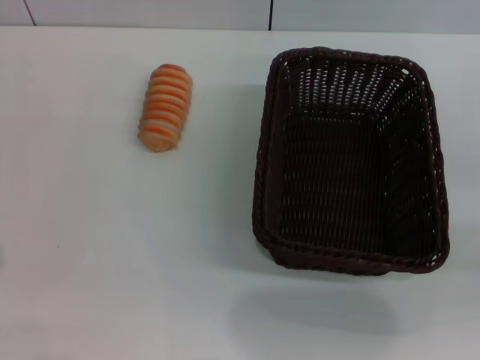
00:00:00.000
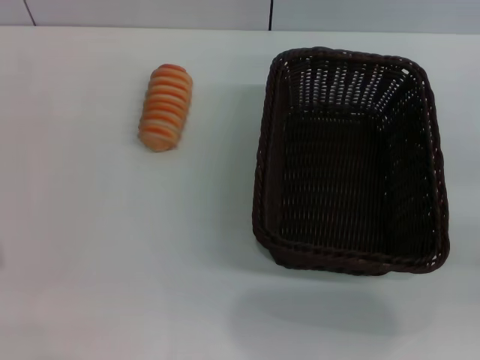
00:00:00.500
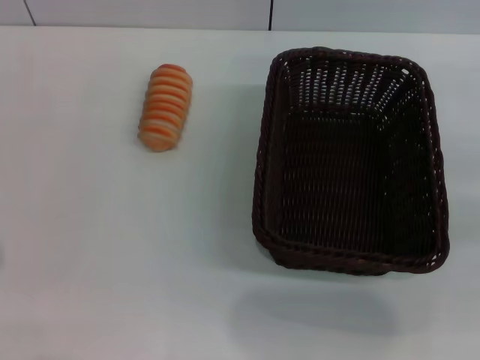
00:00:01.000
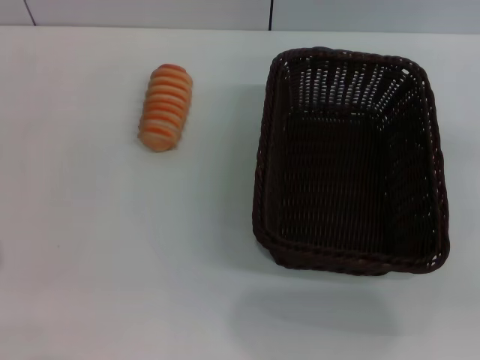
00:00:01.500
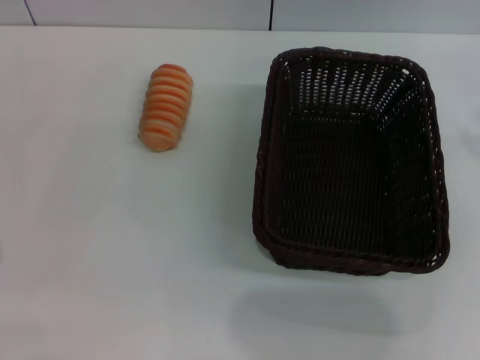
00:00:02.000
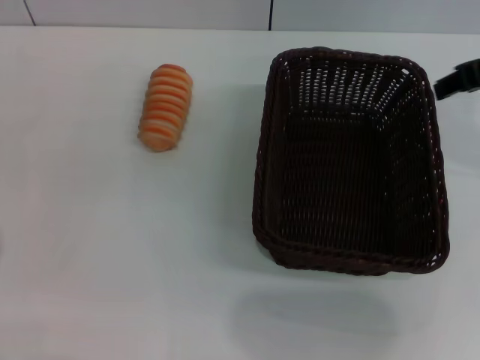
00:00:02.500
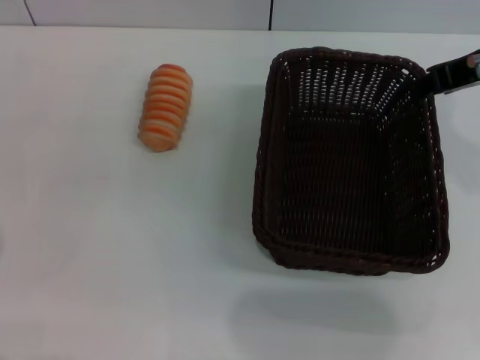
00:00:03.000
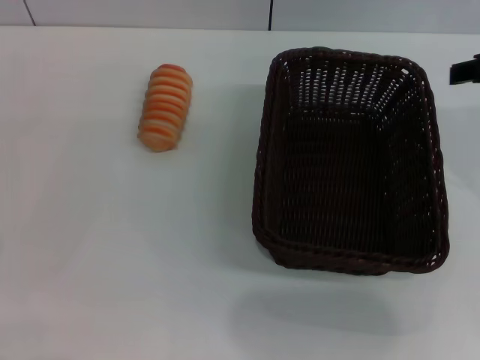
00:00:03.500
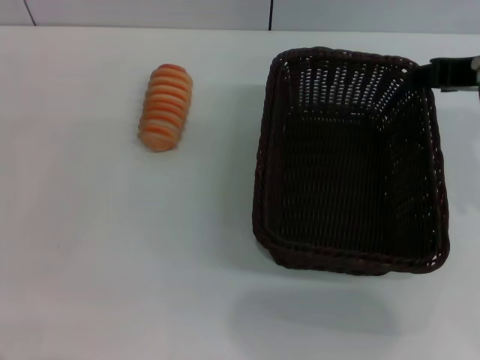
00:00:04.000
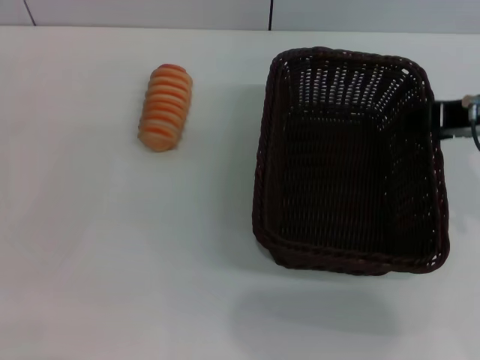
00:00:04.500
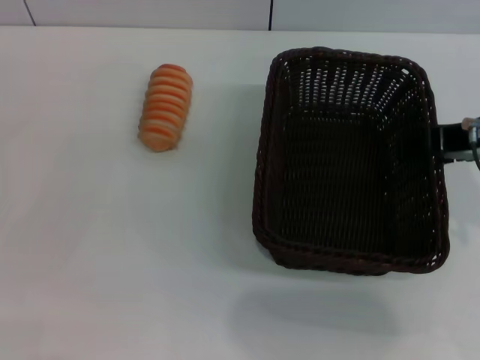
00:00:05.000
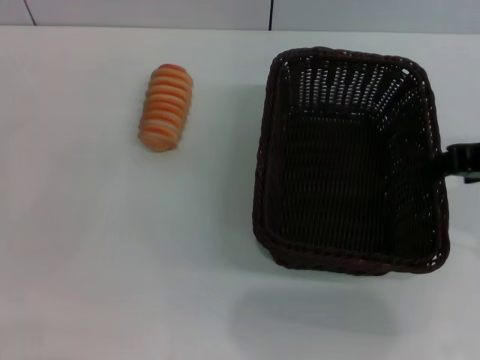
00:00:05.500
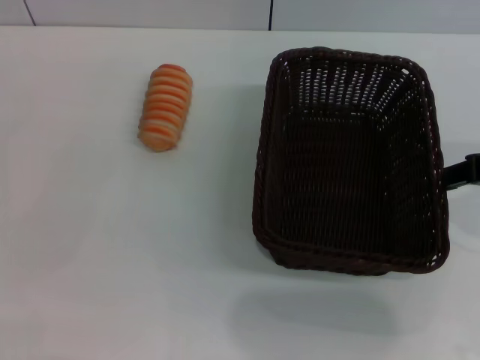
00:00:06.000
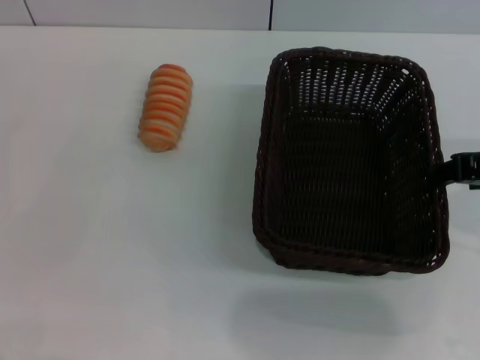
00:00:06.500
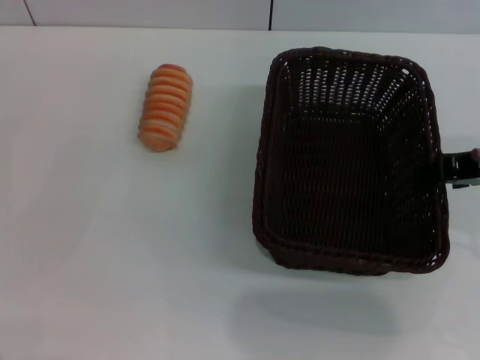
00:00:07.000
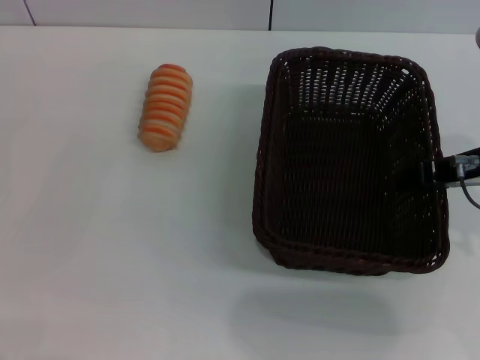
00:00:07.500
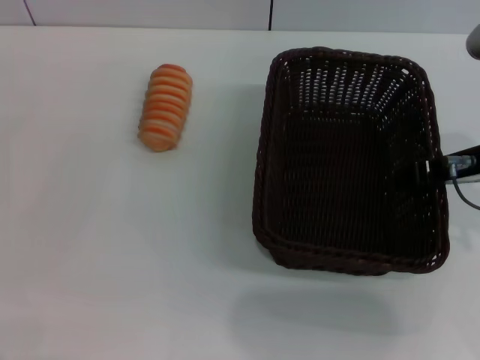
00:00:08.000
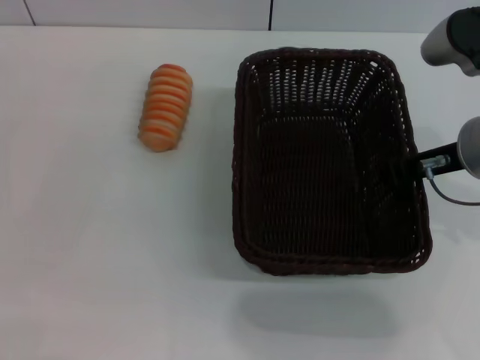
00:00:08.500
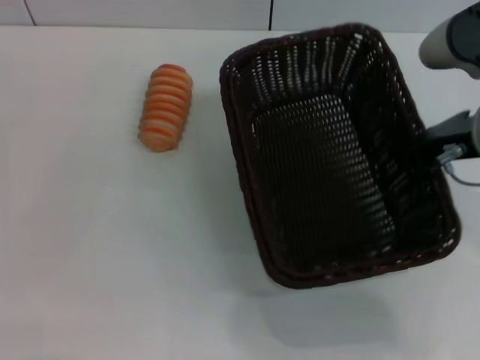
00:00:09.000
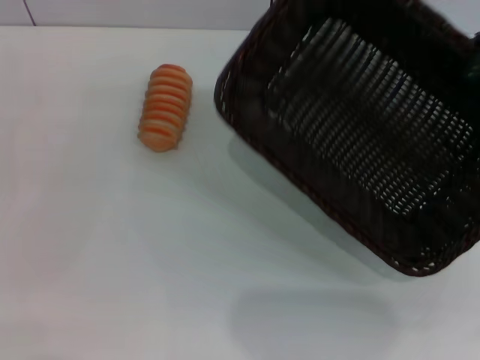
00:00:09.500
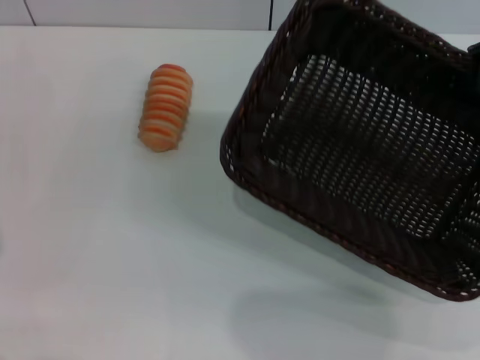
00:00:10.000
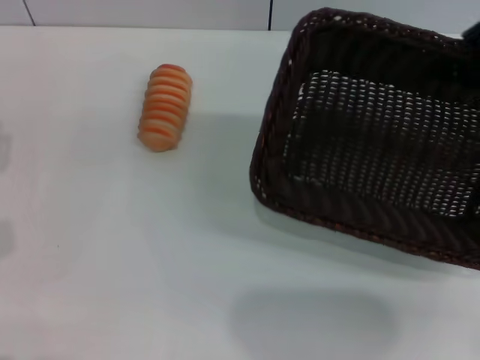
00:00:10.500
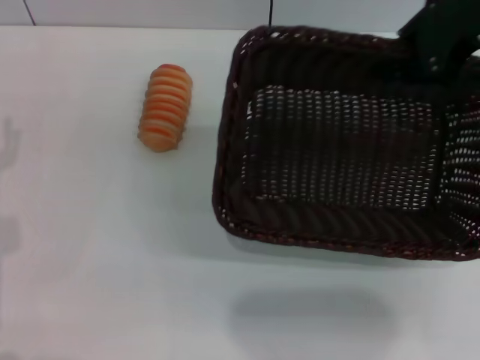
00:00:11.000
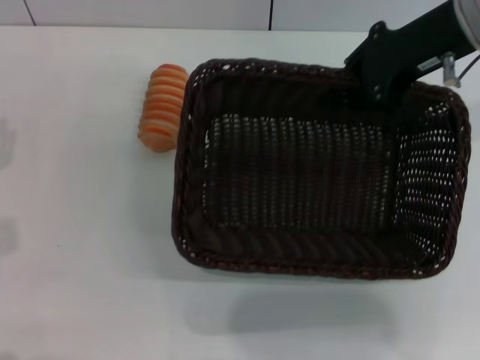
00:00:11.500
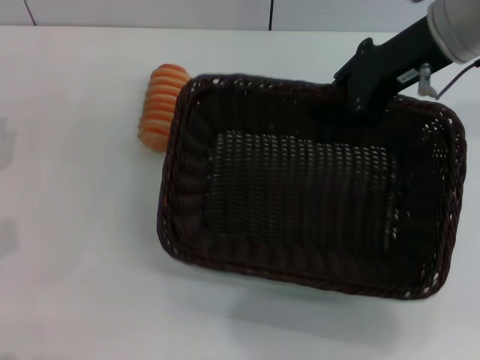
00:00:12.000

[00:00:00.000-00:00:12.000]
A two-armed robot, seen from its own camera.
Step, 00:00:00.000 to 00:00:09.000: Pick up the dark basket with the right gripper.
00:00:02.000 to 00:00:04.000: The right gripper is displaced to the left by approximately 10 cm.
00:00:04.000 to 00:00:06.000: The right gripper moves about 5 cm.
00:00:06.000 to 00:00:08.000: The right gripper moves downward, some 5 cm.
00:00:08.000 to 00:00:10.000: The right gripper heads upward and to the right, covering about 10 cm, and closes its fingers.
00:00:10.000 to 00:00:12.000: The right gripper travels to the left and forward by about 10 cm.

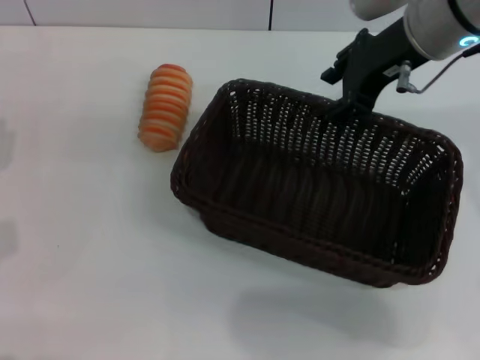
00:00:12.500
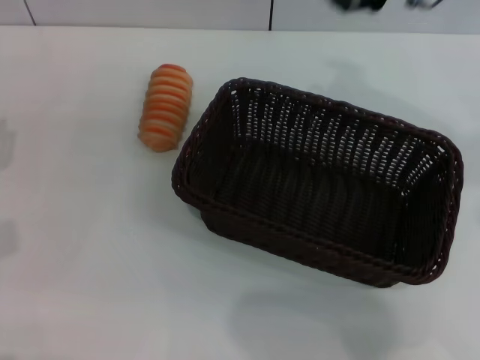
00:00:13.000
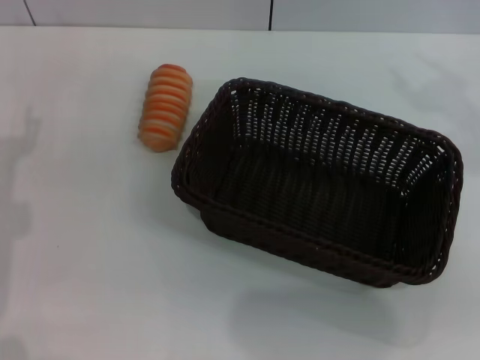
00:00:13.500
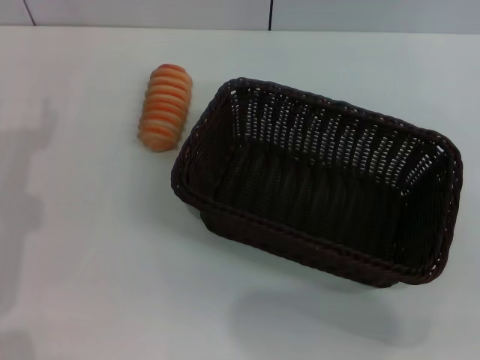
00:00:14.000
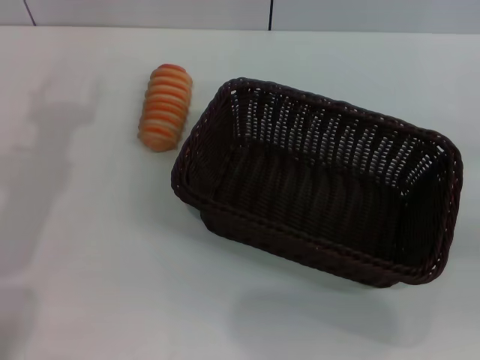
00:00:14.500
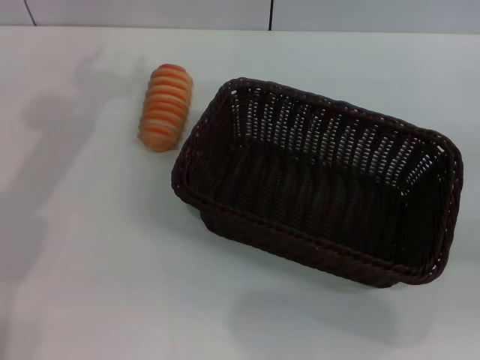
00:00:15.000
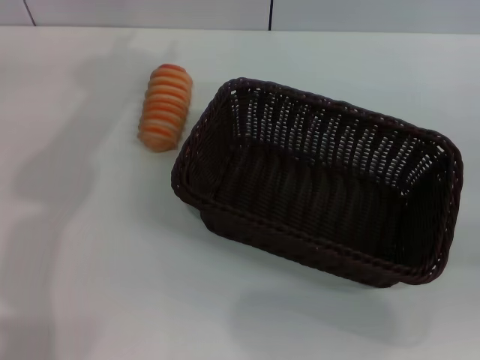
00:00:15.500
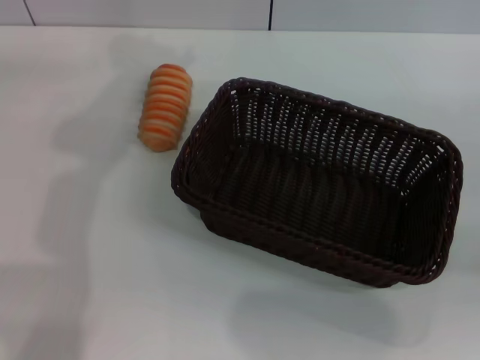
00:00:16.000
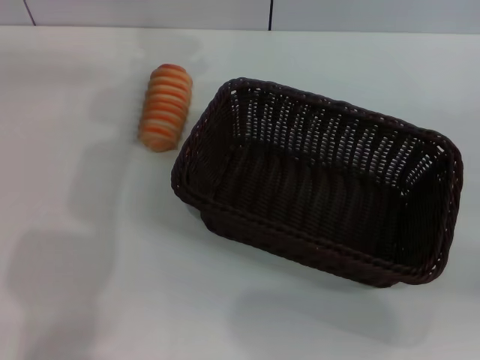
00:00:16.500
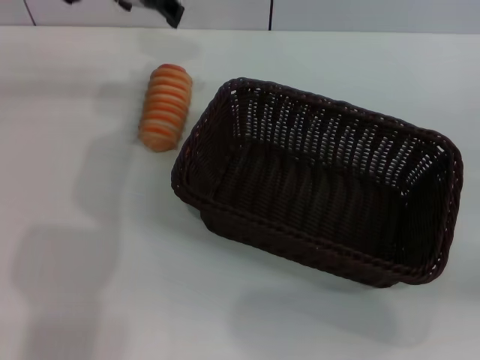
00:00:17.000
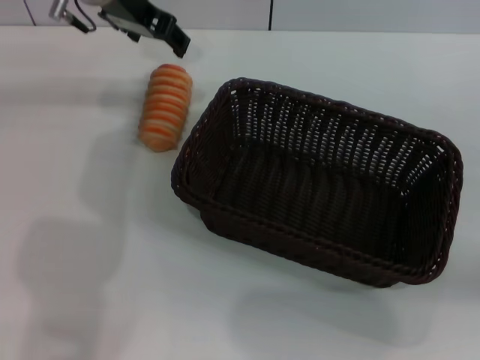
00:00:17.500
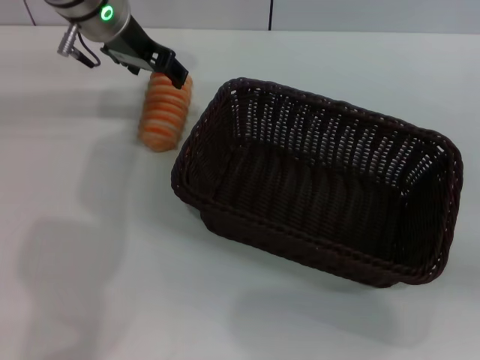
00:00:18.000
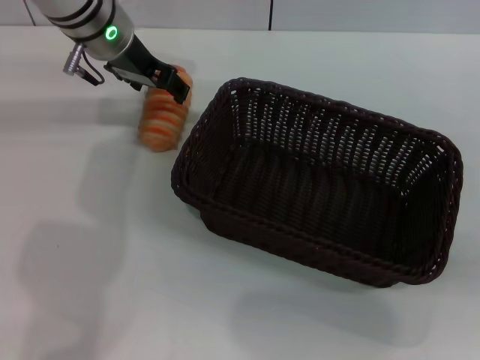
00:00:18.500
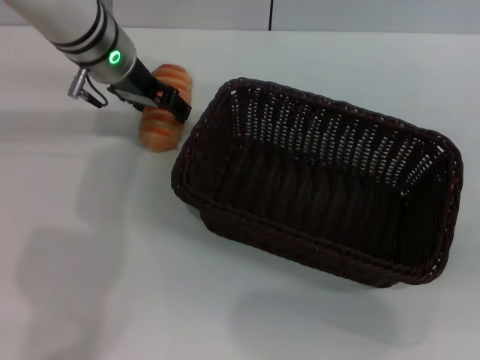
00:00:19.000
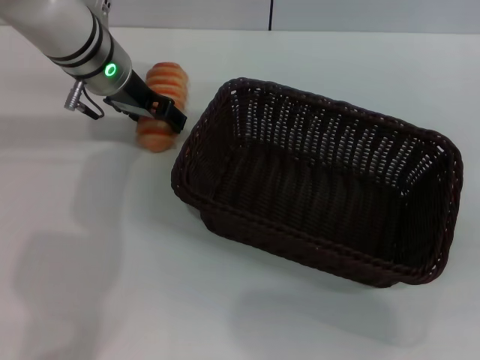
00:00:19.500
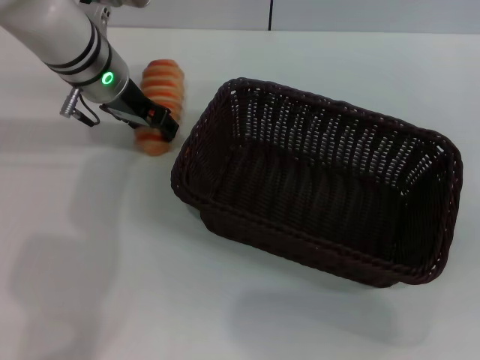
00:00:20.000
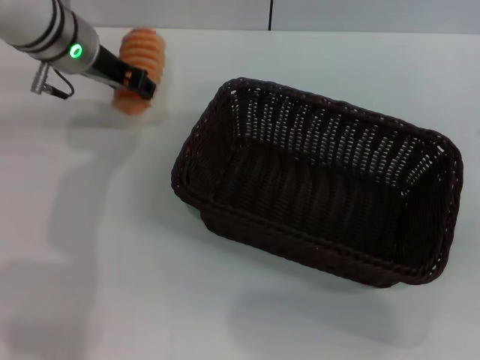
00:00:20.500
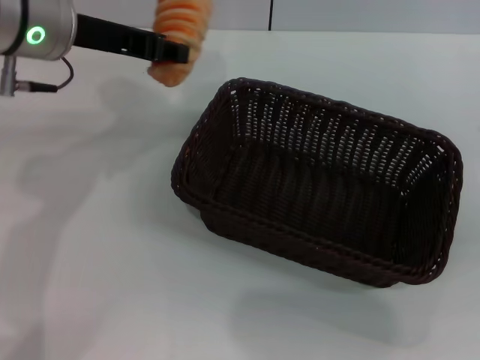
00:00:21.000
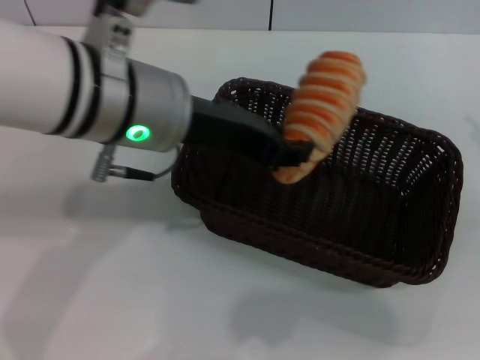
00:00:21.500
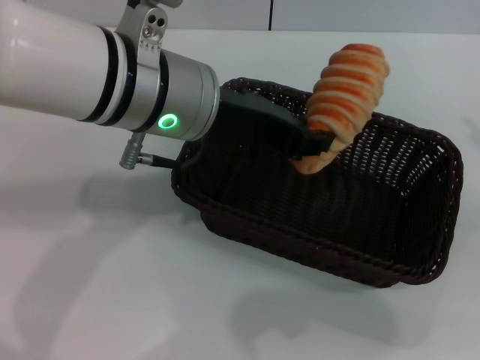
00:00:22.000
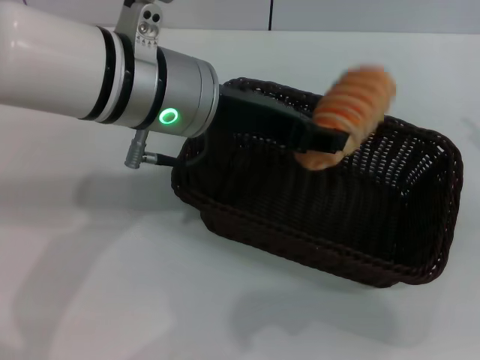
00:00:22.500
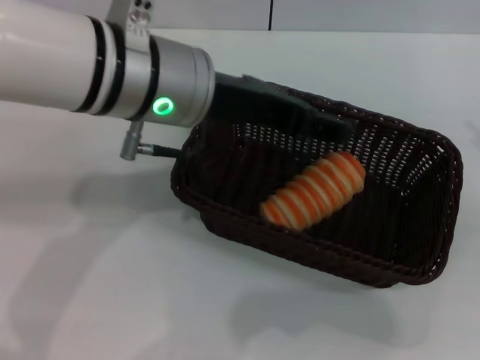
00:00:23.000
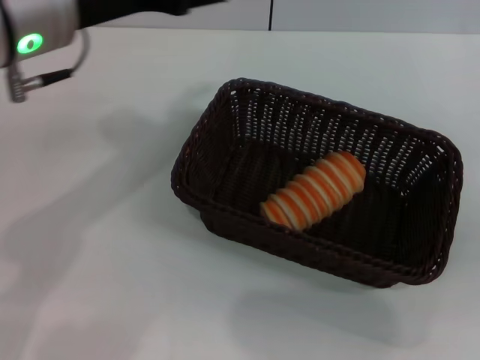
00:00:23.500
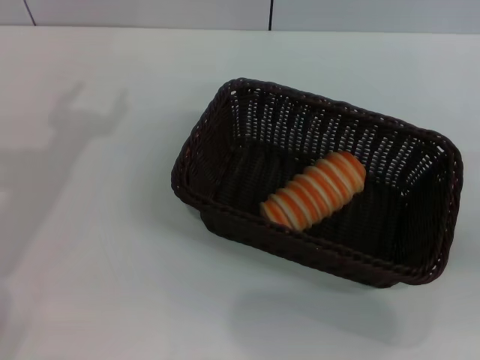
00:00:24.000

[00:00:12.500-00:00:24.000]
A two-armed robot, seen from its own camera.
Step, 00:00:13.000 to 00:00:21.000: Pick up the long bread with the left gripper.
Step, 00:00:21.500 to 00:00:23.000: Place the long bread into the dark basket with the left gripper.
00:00:12.500 to 00:00:14.500: The left gripper moves upward, approximately 10 cm; the right gripper travels to the right and backward by roughly 30 cm.
00:00:14.500 to 00:00:16.500: The left gripper heads forward and to the right, covering approximately 20 cm.
00:00:16.500 to 00:00:18.500: The left gripper heads downward, covering some 15 cm.
00:00:18.500 to 00:00:20.000: The grippers stay close to where they were, moving slightly.
00:00:20.000 to 00:00:22.000: The left gripper shifts roughly 15 cm backward, upward and to the right, and closes up.
00:00:22.000 to 00:00:24.000: The left gripper heads to the left, covering approximately 20 cm, and opens up.

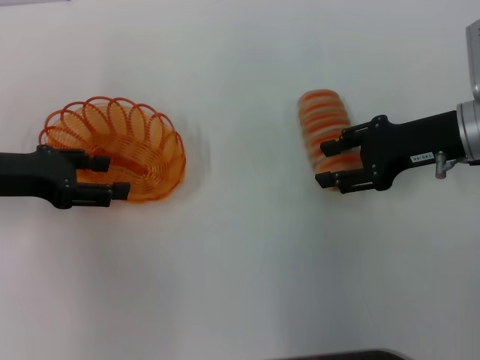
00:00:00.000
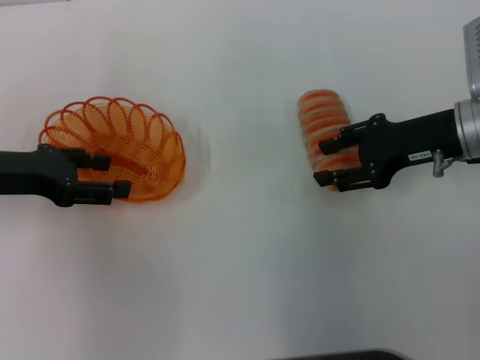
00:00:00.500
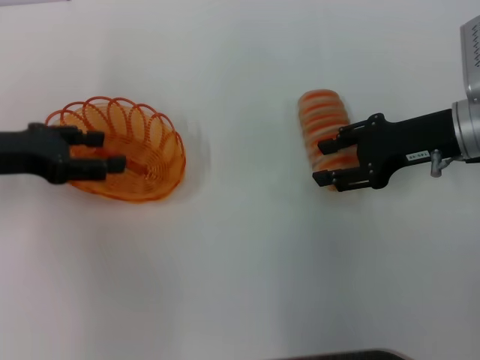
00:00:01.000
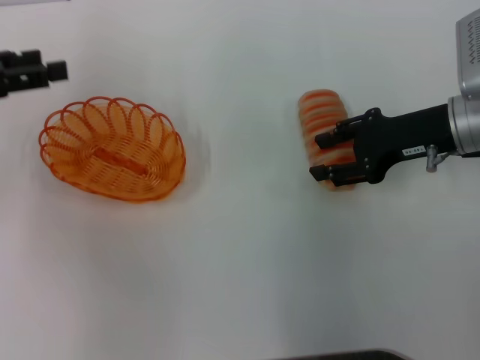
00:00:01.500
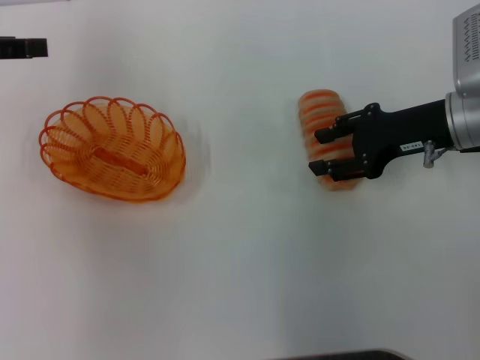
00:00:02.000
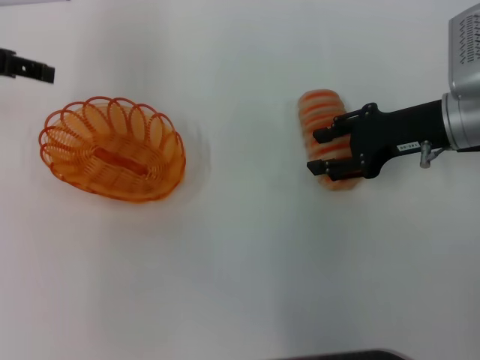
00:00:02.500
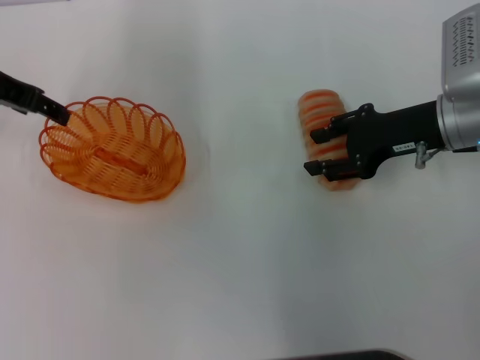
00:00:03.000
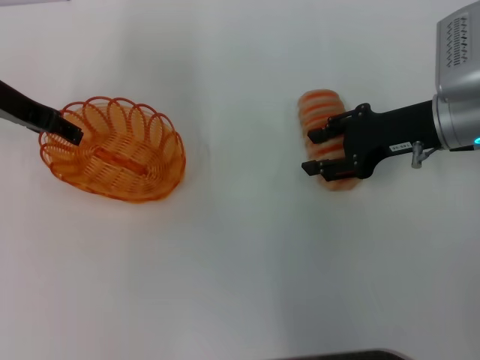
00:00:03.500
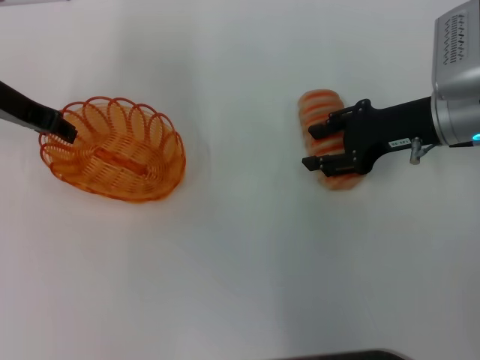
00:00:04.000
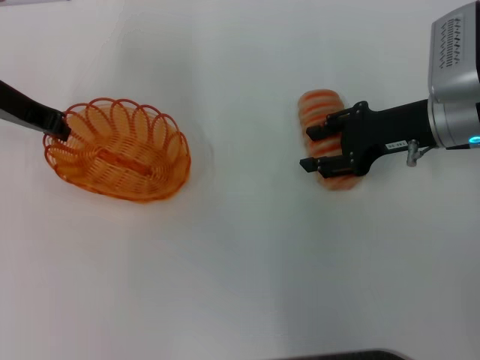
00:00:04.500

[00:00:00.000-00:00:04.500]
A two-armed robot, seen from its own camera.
00:00:00.000 to 00:00:02.000: The left gripper shifts some 10 cm upward.
00:00:02.000 to 00:00:04.500: The left gripper moves to the right, approximately 10 cm, and closes up.
